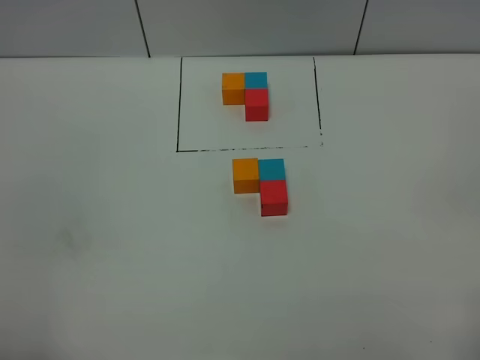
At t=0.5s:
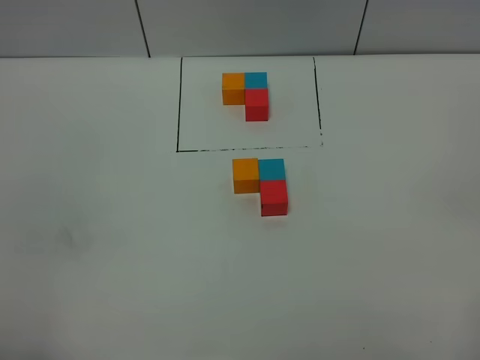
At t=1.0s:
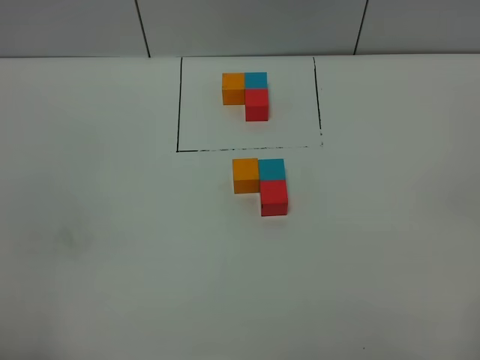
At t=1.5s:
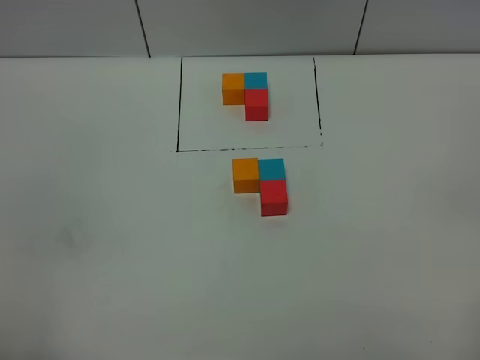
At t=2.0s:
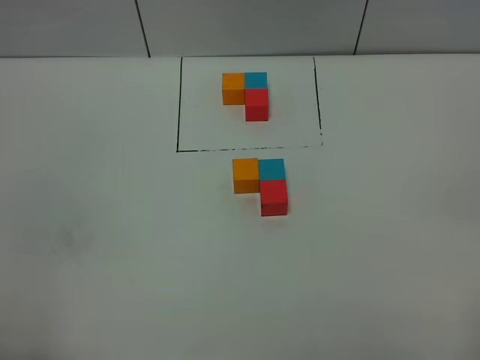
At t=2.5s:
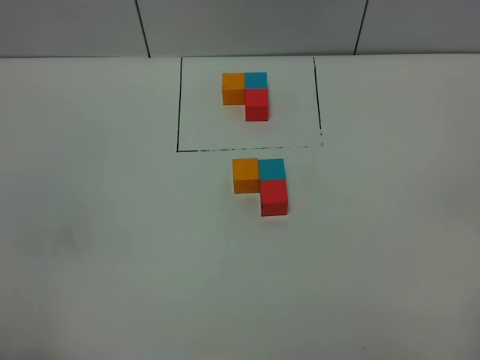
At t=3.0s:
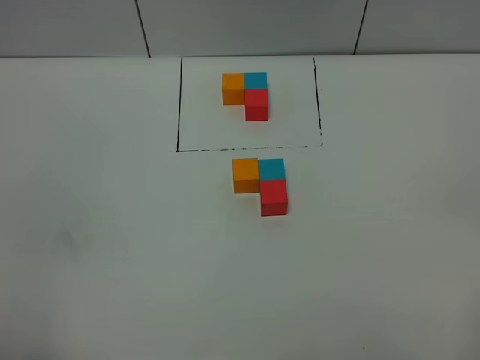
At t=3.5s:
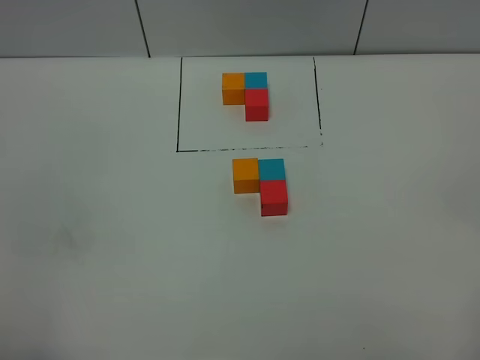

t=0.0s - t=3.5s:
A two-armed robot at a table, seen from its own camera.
Task of the whole recording: According to the building block template in front, assemble the scattered blocks together.
t=2.0s - t=3.5s: Both grippers stay put.
